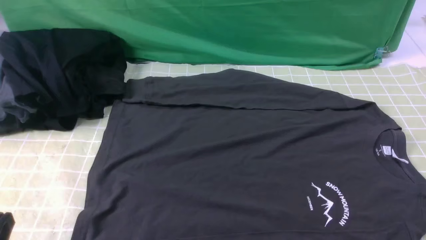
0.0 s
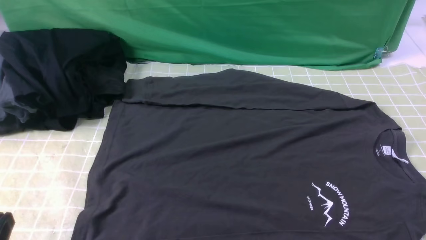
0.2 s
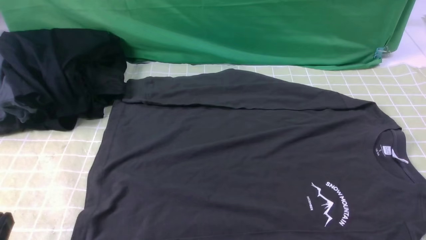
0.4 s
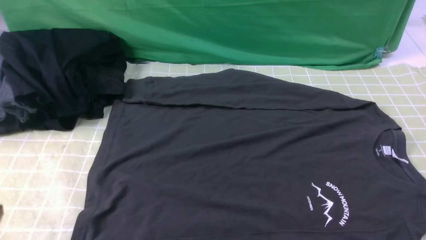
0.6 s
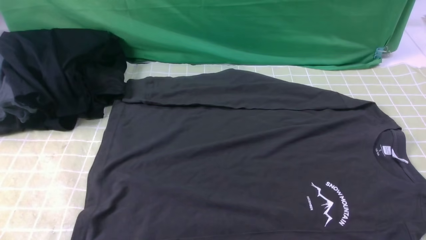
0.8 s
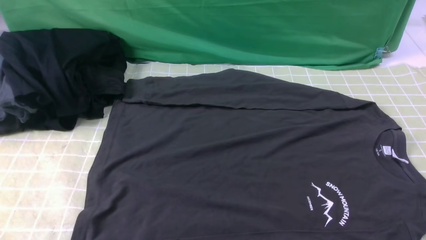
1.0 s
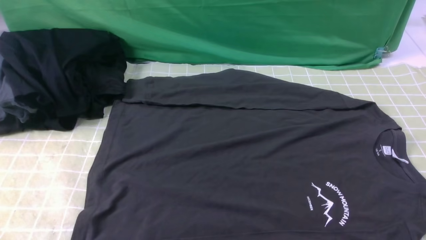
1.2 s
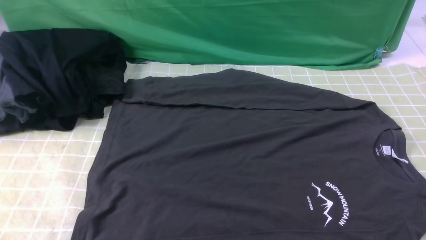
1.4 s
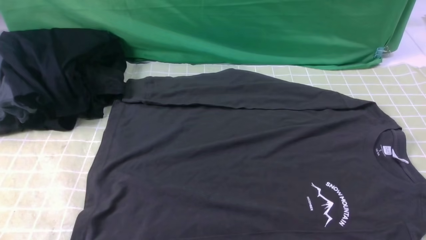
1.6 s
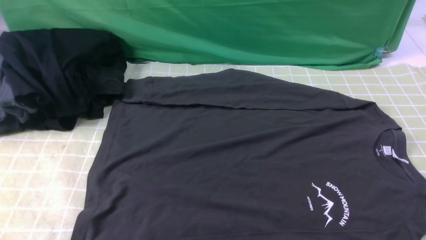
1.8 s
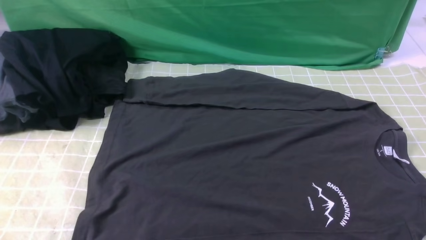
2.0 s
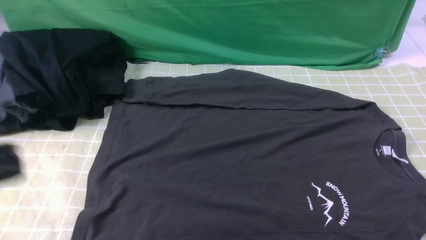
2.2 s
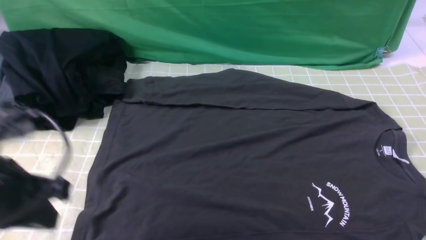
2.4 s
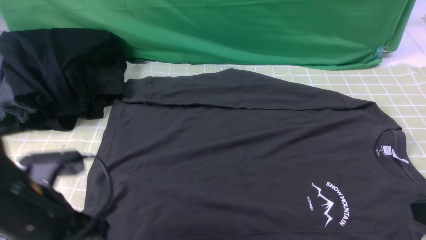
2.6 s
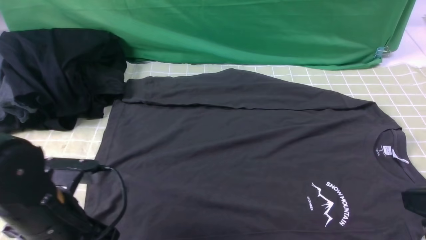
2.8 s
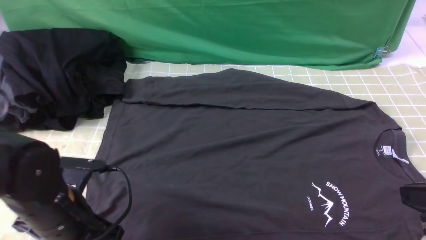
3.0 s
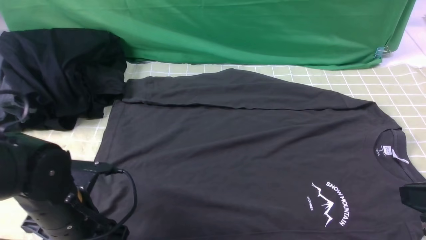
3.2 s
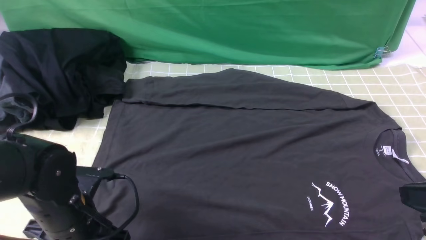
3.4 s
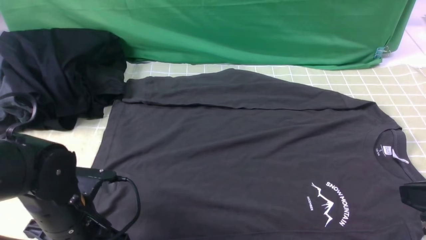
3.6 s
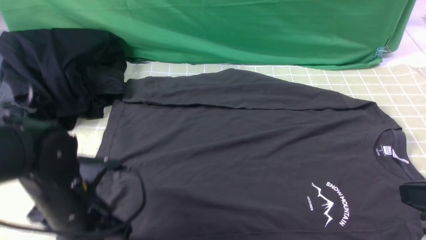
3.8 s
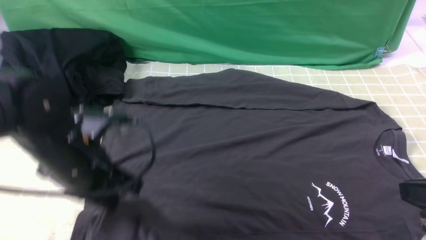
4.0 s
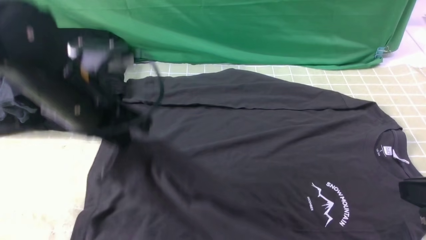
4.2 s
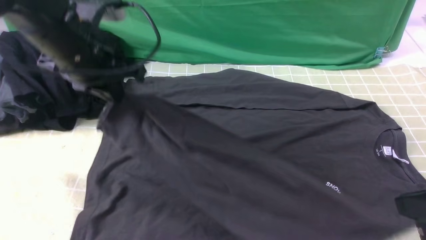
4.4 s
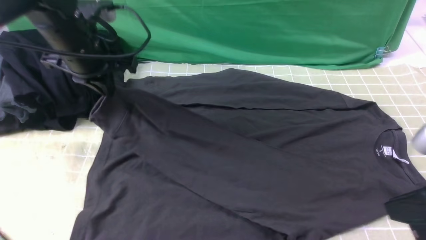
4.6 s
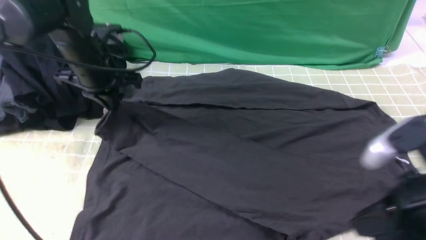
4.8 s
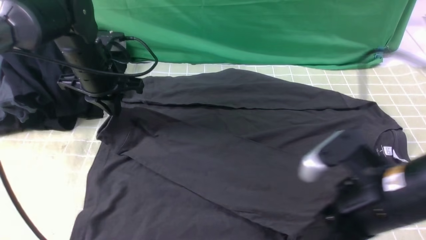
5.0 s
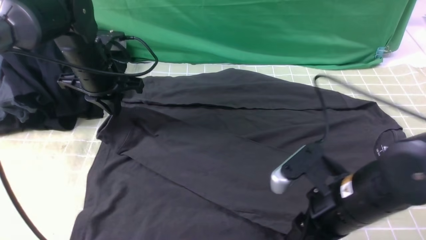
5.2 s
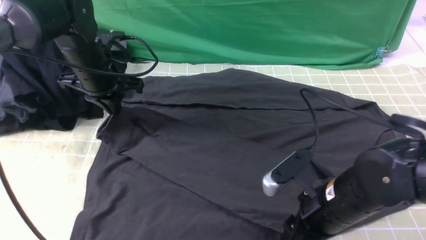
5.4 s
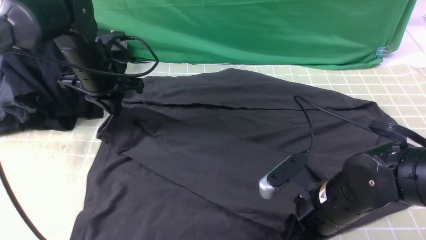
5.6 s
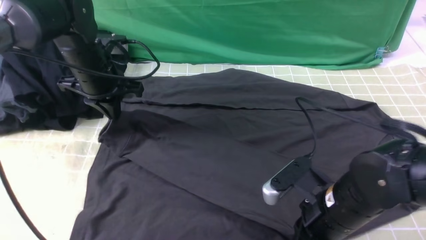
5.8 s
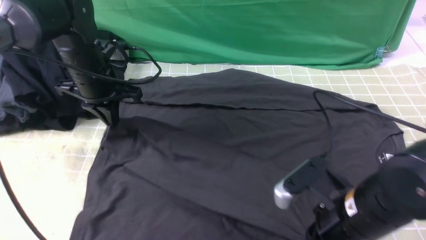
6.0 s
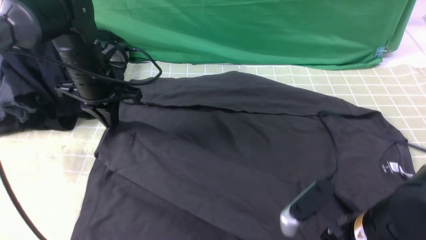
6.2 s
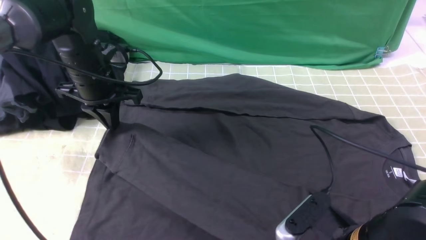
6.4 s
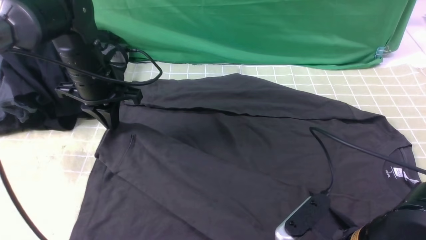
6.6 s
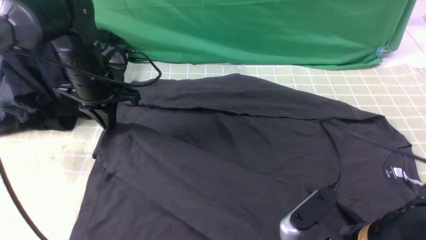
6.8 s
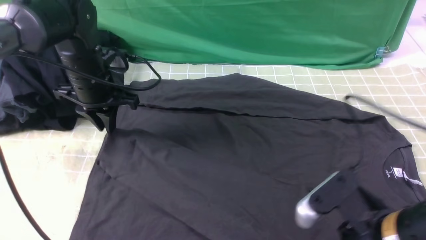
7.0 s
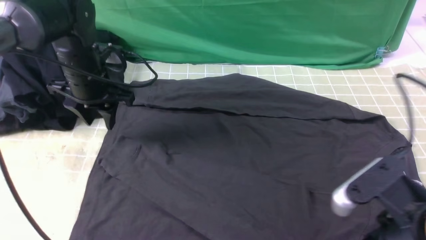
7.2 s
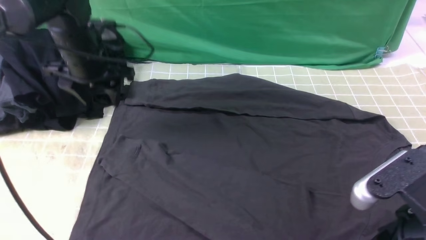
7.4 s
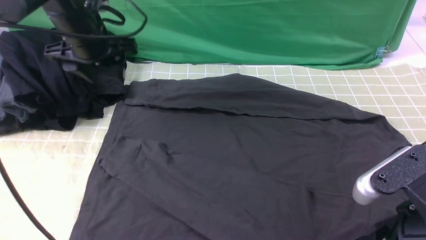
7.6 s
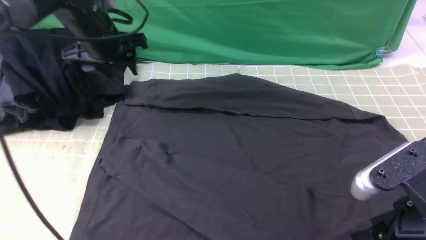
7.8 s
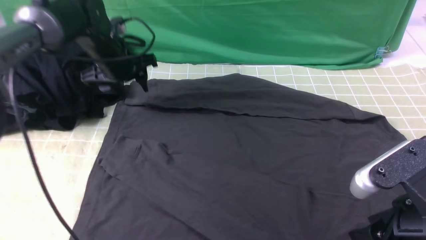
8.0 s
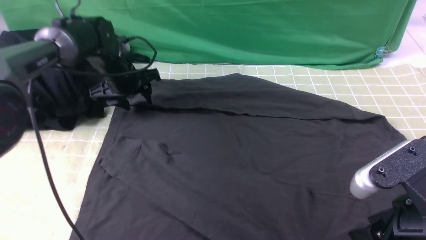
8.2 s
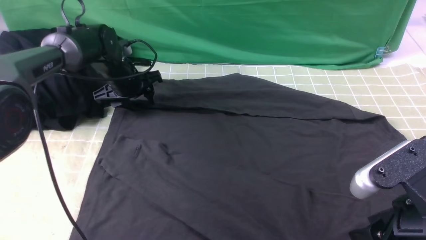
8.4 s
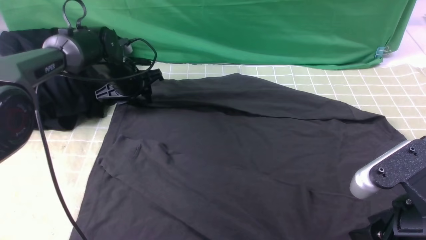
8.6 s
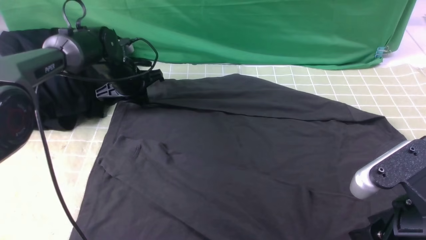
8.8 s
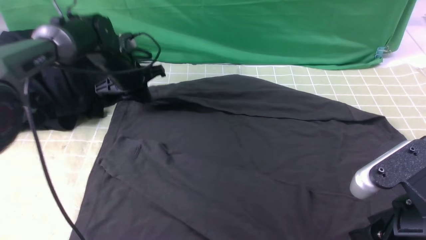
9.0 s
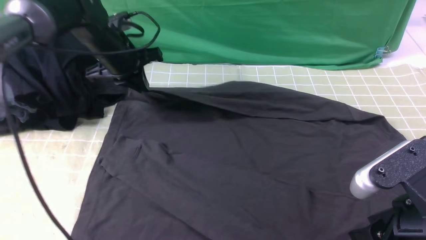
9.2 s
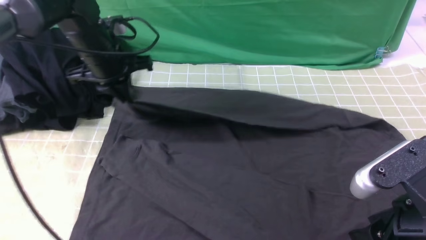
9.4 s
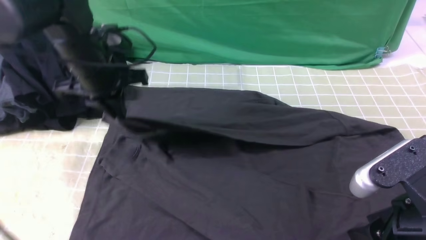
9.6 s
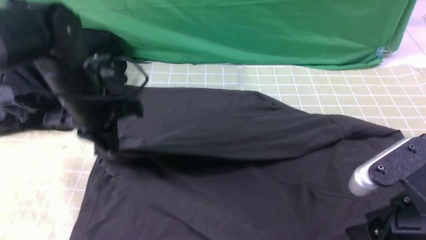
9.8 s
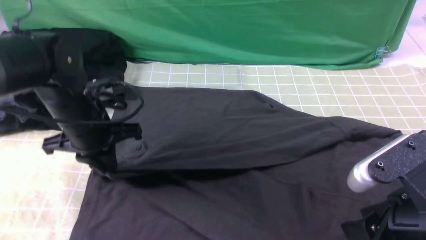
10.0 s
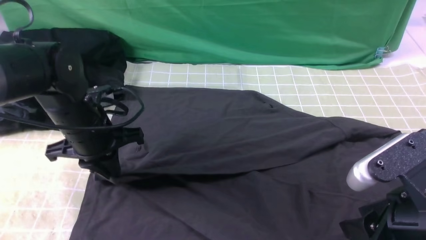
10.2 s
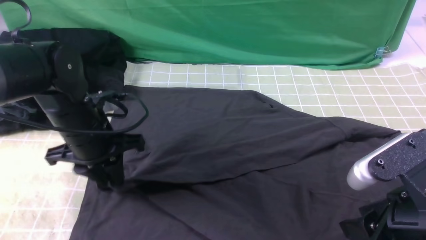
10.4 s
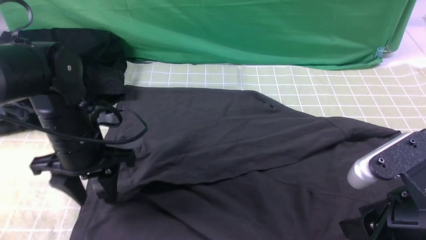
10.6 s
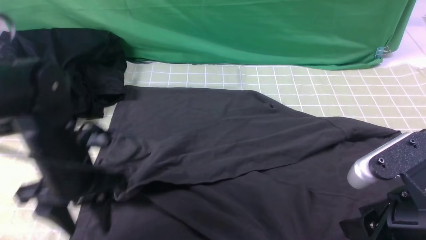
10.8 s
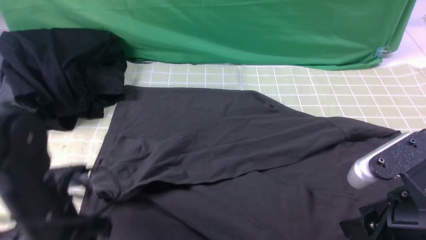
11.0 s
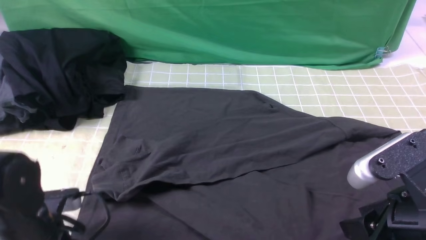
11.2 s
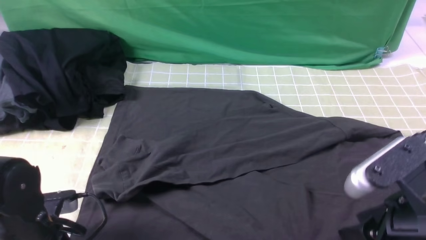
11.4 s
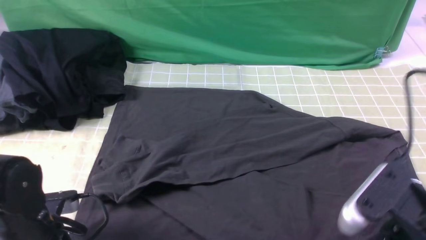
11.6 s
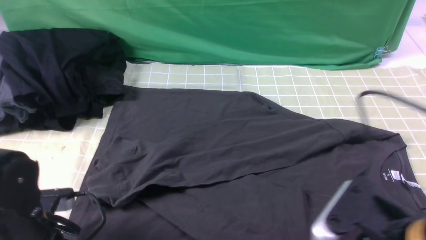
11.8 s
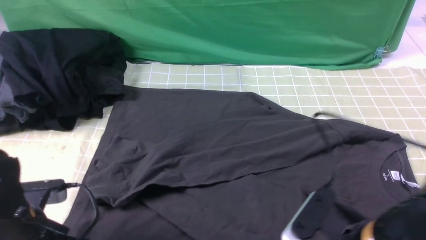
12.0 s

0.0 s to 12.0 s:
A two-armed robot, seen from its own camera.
Step, 0.0 to 3.6 s: use the left arm to clamp the cuff closest to it.
Step, 3.8 to 7.2 s: use the left arm to drag and place the cuff at the centered position on the left edge of the fabric.
Step, 7.4 to 8.6 s: use the left arm to clamp the cuff farthest from it.
Step, 8.8 to 10.6 s: use the left arm to drag and drop the cuff onto the cuff closest to the left arm.
1.6 to 3.0 s: The left gripper moves forward, downward and to the right, some 20 cm, and opens its fingers.
3.0 to 4.4 s: The left gripper shifts about 20 cm forward and upward, and closes up.
4.4 to 6.0 s: The left gripper shifts roughly 10 cm downward and forward, while the right gripper travels downward and to the left by about 15 cm, and opens, then closes again.
6.0 to 7.6 s: The right gripper is displaced upward, backward and to the right by approximately 10 cm, and opens up; the left gripper shifts by some 5 cm, and opens its fingers.
7.6 to 9.0 s: The left gripper travels downward by about 10 cm, and closes its fingers.
9.0 to 10.4 s: The left gripper goes some 15 cm backward, and opens its fingers.
10.4 to 12.0 s: The left gripper is displaced backward by some 15 cm, and closes. Meanwhile the right gripper heads downward, covering about 5 cm, and opens its fingers.

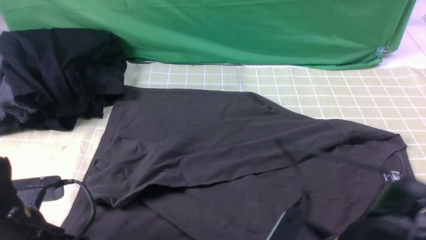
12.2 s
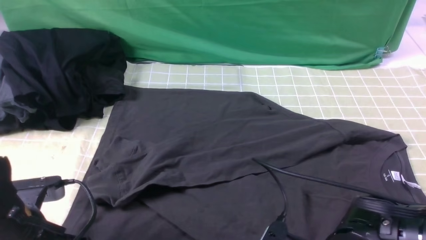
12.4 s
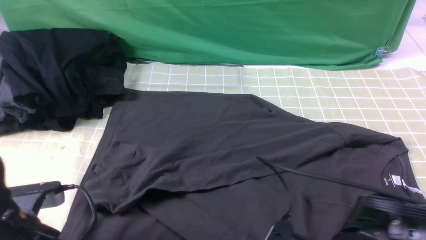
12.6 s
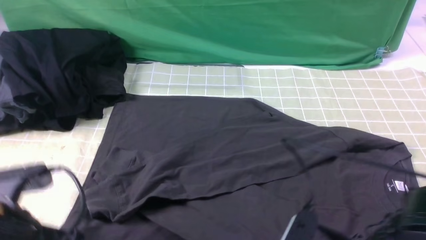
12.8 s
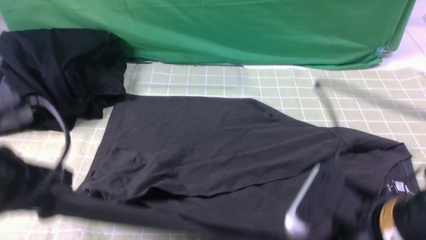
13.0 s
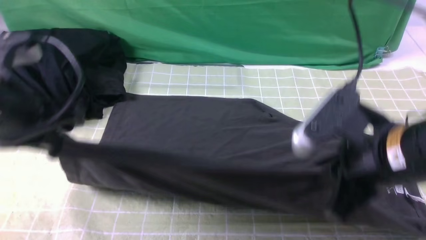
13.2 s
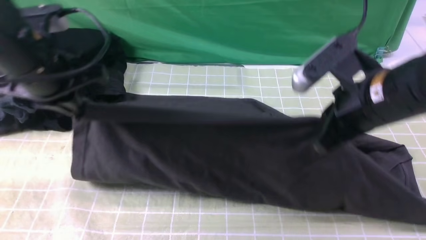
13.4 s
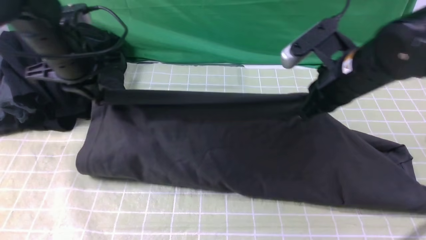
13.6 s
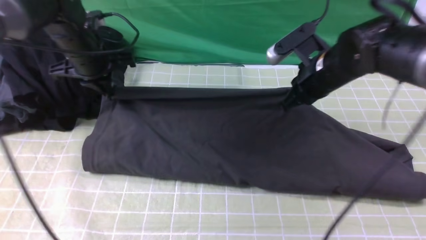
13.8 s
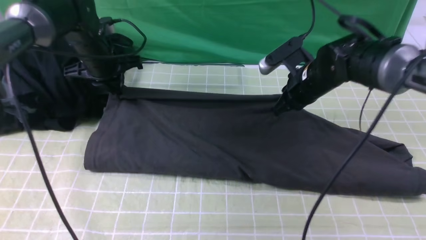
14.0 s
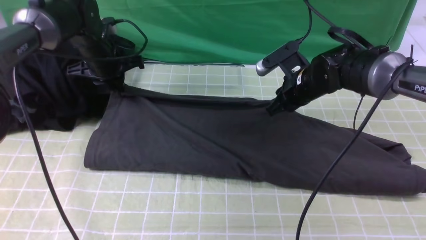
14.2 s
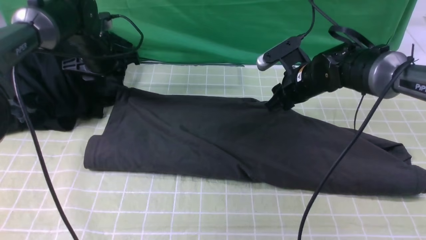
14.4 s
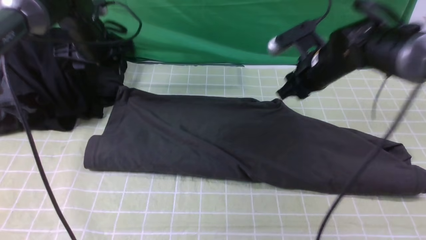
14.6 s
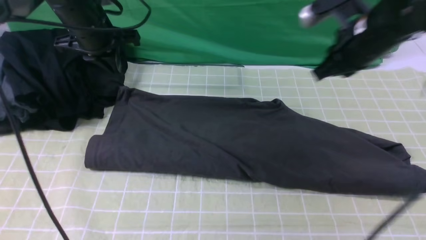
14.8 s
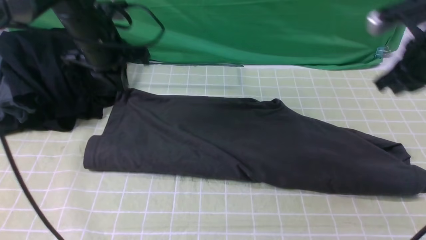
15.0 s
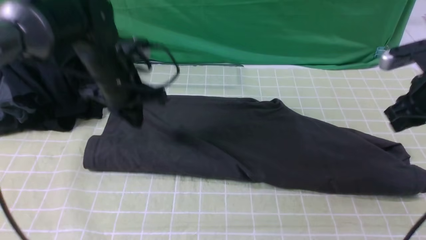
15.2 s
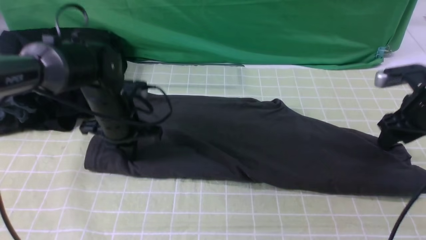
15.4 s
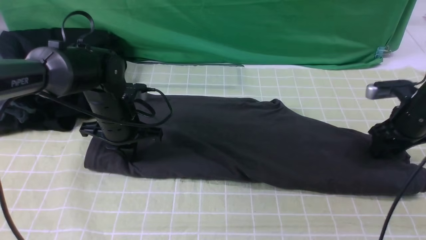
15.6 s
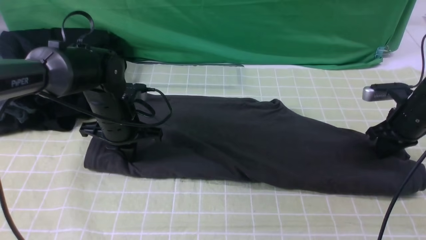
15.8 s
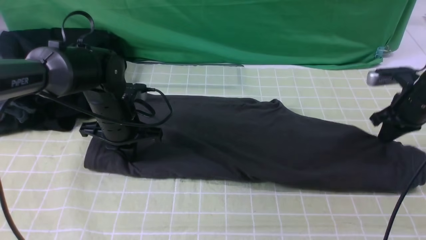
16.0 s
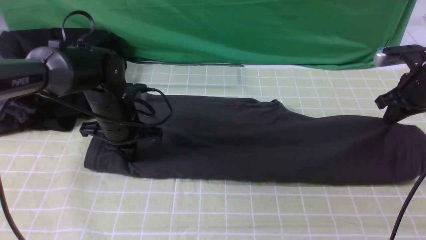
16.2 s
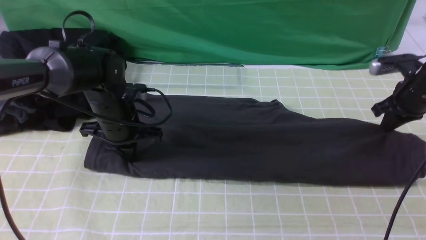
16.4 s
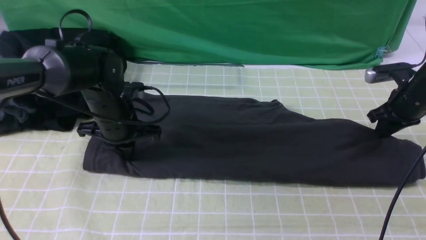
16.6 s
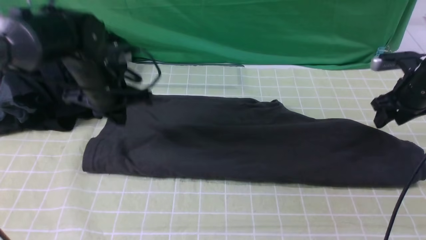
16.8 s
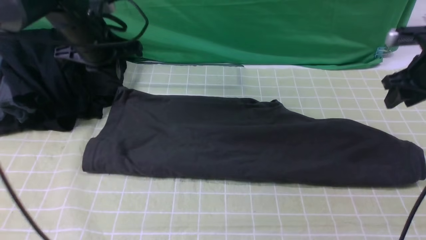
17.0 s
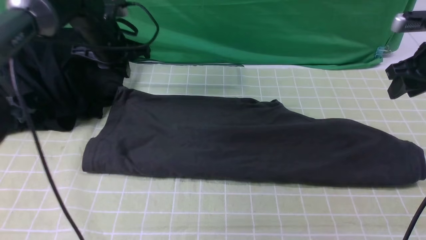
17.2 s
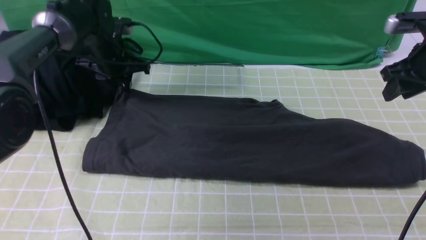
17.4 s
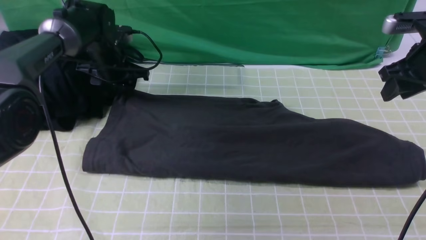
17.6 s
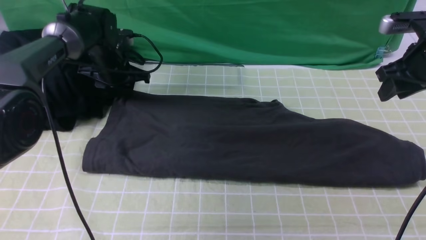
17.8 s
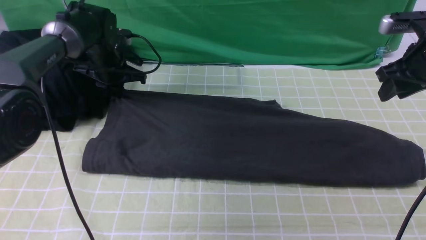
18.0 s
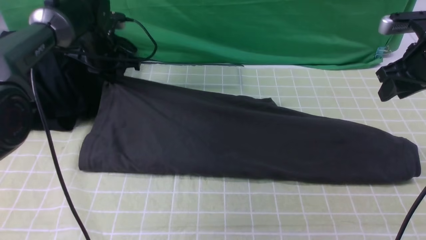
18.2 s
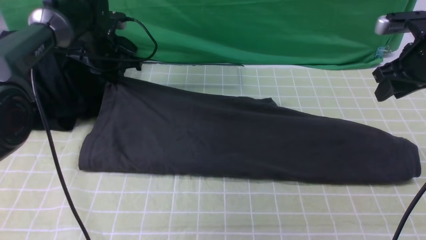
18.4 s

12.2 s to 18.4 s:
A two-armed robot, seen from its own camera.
12.2 to 13.8 s: Both grippers travel together forward, roughly 25 cm. The right gripper closes its fingers.
13.8 to 15.4 s: The right gripper moves to the right, some 20 cm, and opens; the left gripper moves downward, backward and to the right, about 10 cm, and opens and closes again.
15.4 to 16.8 s: The right gripper closes and opens again, while the left gripper travels upward by roughly 5 cm.
16.8 to 18.4 s: The left gripper moves forward, roughly 10 cm, and opens and closes again. The right gripper is displaced upward by some 5 cm.
